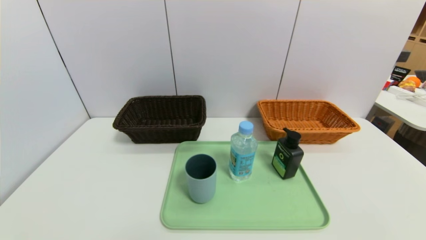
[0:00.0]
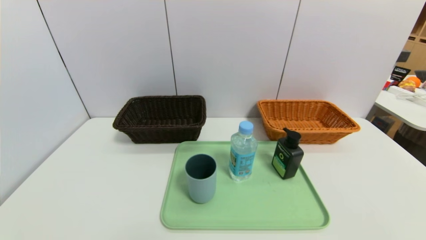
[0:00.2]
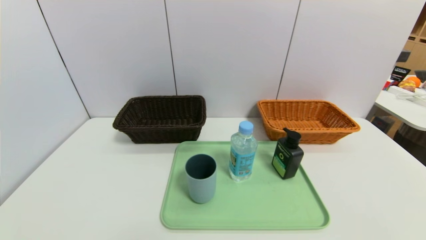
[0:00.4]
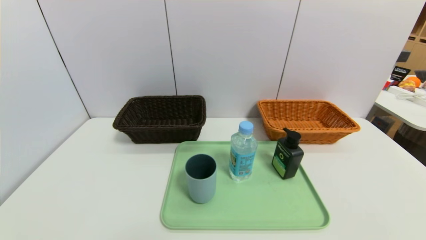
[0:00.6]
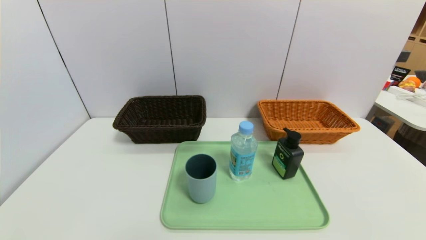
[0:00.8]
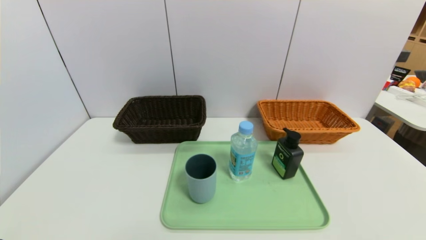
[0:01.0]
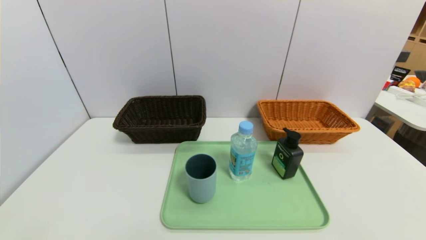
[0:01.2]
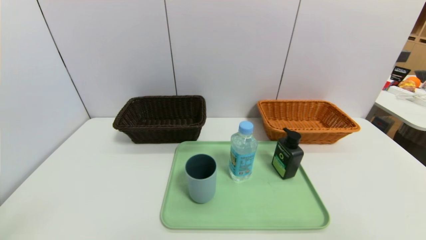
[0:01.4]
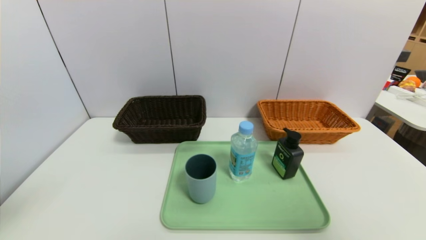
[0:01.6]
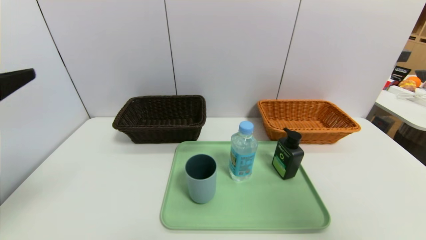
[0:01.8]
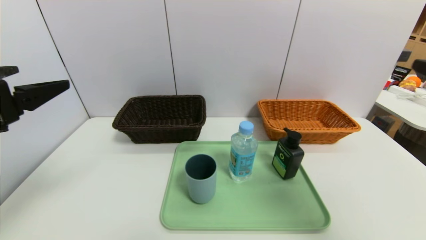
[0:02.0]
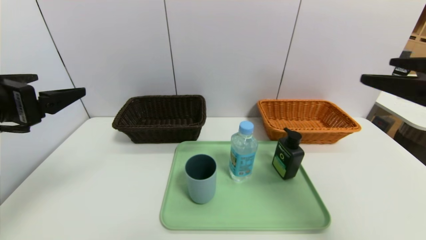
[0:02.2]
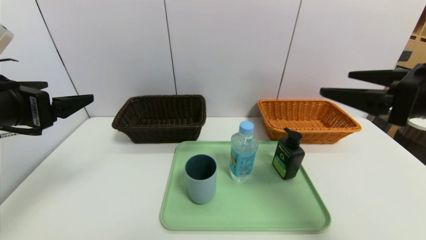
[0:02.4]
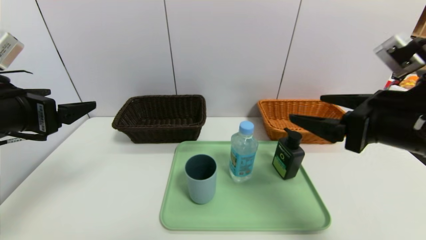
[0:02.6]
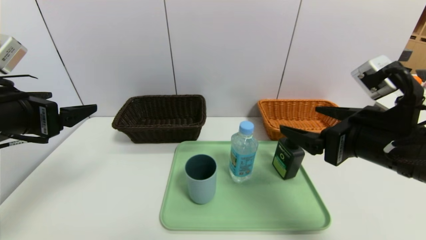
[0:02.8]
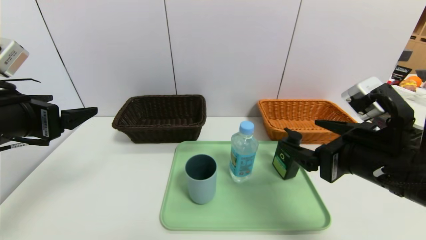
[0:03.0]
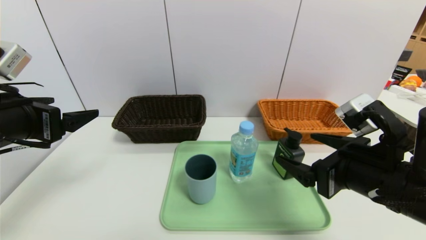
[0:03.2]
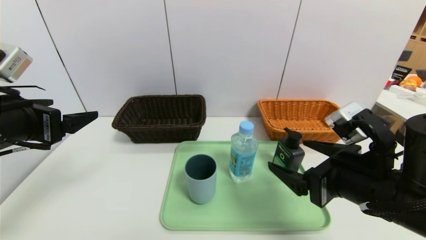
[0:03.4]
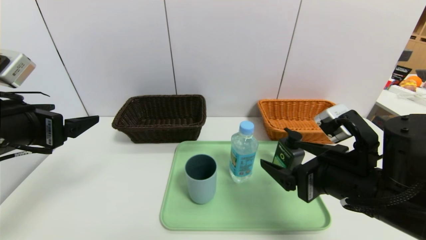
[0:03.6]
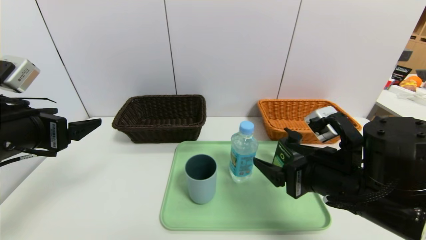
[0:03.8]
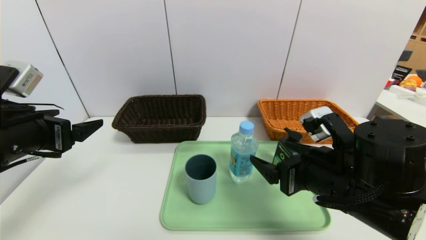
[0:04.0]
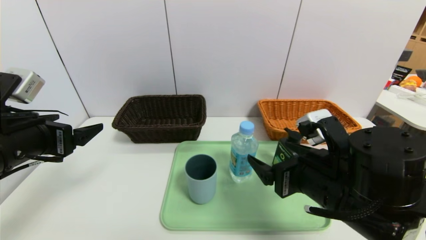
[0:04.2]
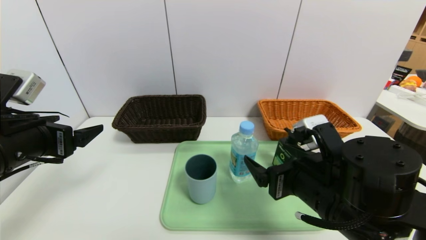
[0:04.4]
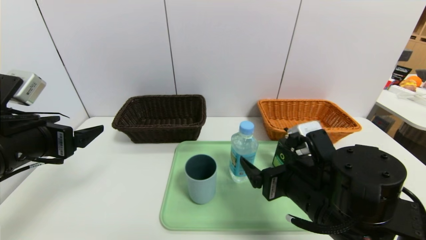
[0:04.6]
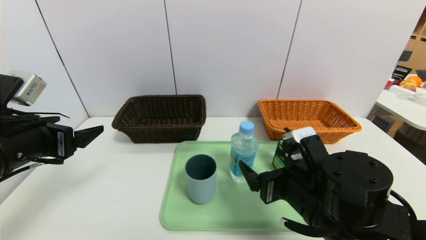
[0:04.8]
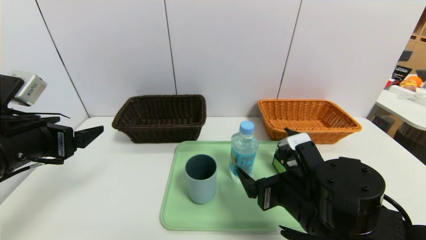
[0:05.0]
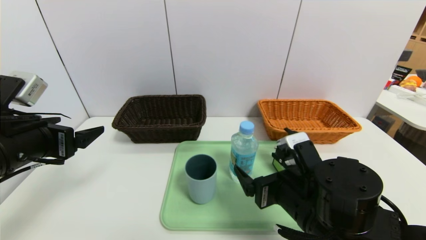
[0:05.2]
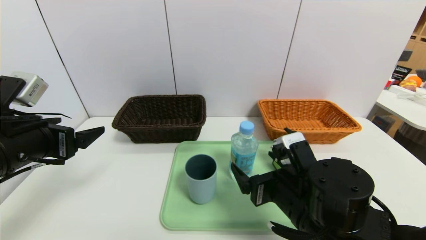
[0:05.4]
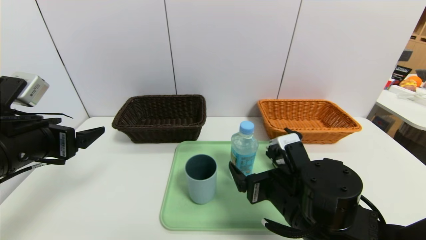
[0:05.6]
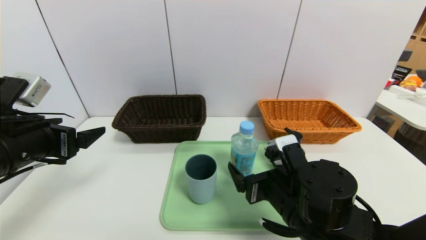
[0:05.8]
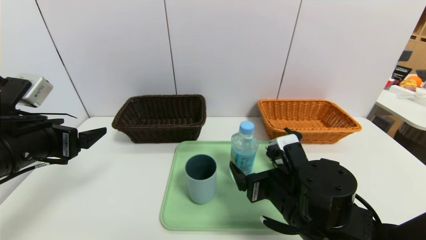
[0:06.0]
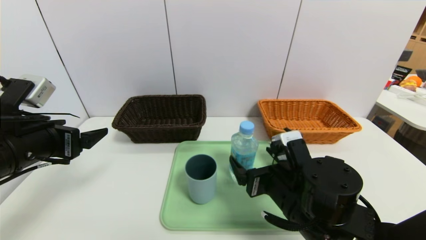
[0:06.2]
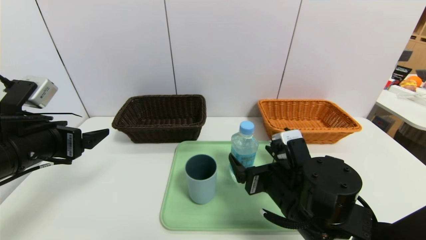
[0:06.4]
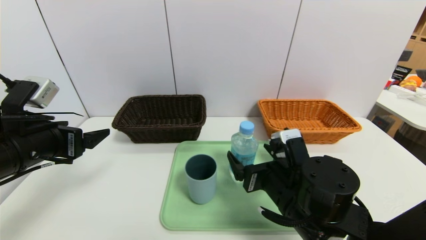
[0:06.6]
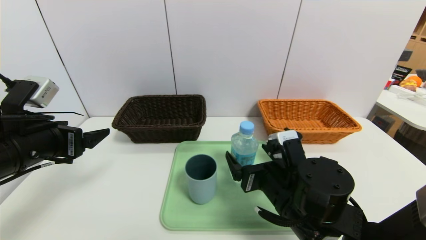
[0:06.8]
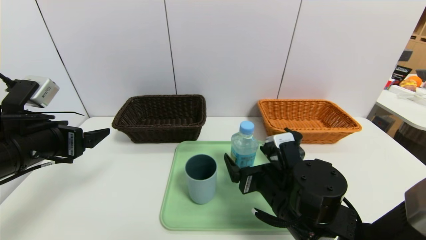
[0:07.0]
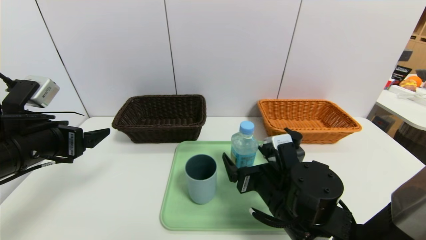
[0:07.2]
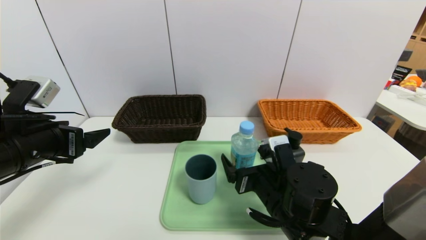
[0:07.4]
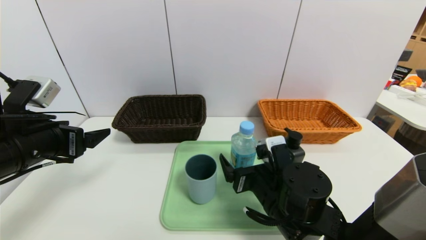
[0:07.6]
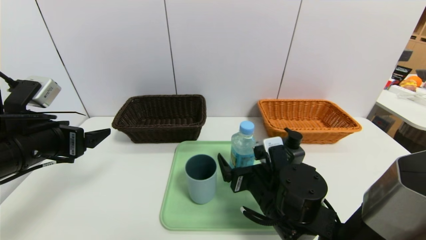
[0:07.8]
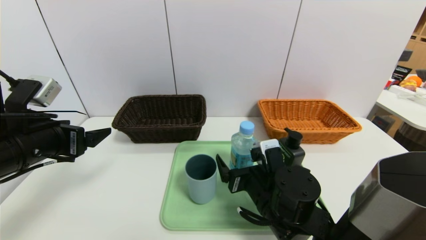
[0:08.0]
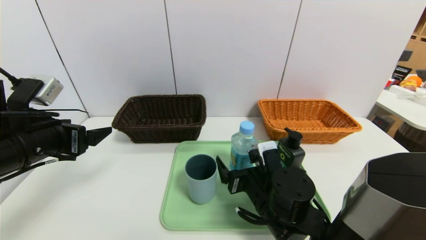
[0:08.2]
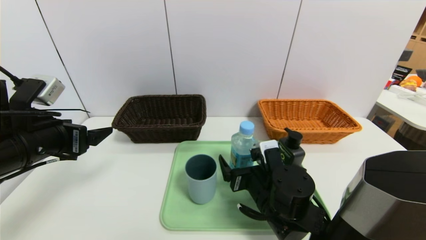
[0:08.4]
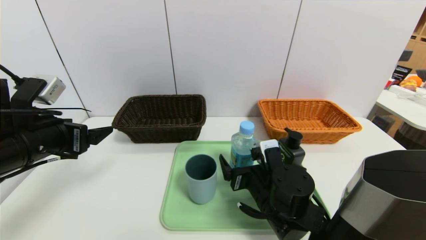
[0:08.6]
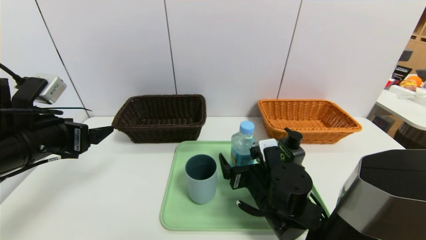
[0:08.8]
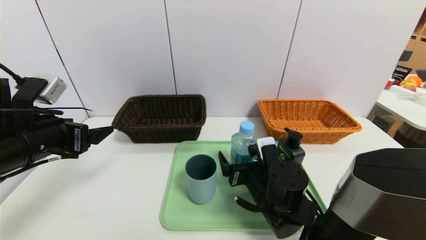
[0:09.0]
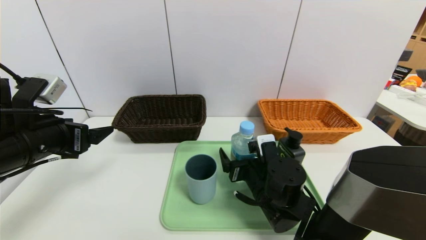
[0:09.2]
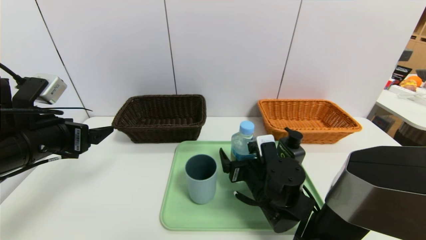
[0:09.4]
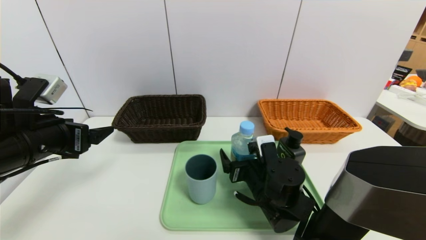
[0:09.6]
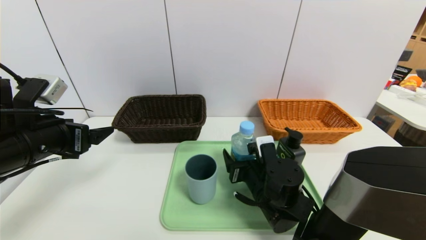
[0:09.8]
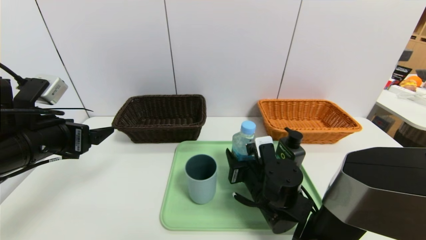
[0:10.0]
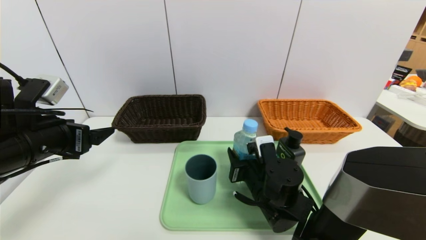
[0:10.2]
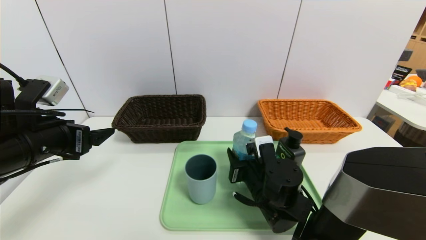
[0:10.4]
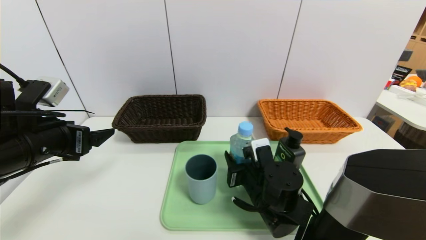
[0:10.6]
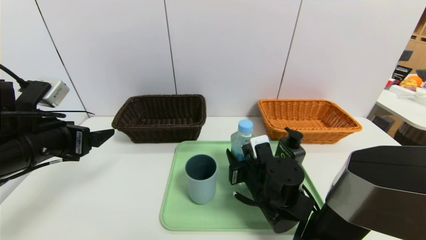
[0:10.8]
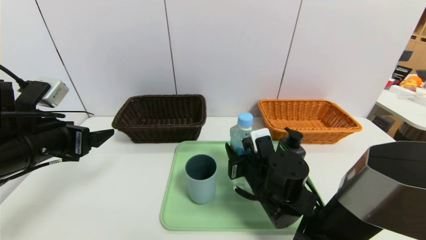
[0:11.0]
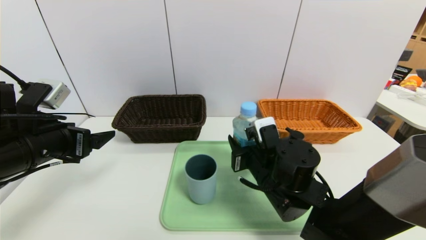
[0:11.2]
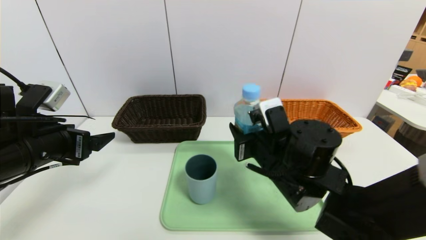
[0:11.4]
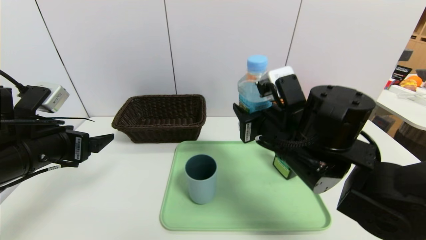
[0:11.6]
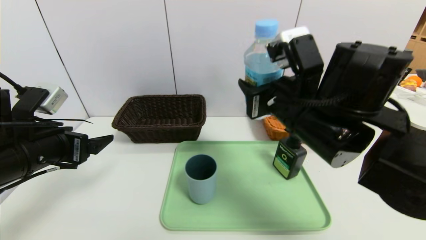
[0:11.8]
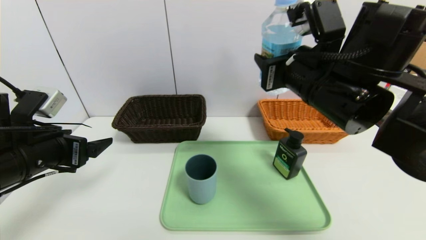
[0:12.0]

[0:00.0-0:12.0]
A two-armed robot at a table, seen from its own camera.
Task of the whole recording: place the food in the right basket with the right gripper, and place the non food items in the left basket with the left gripper.
0:00.0 to 0:01.6: Both grippers move upward, about 25 cm.
0:01.6 to 0:03.0: The right gripper is displaced downward, to the left and forward by about 20 cm. Meanwhile the left gripper shifts some 10 cm forward.
0:03.0 to 0:04.4: The right gripper heads to the left and downward, covering approximately 10 cm.
0:04.4 to 0:06.0: The right gripper shifts by some 5 cm.
0:06.0 to 0:07.6: There are only small adjustments of the grippers.
0:07.6 to 0:09.0: The grippers stay close to where they were, moving slightly.
0:09.0 to 0:10.4: The right gripper closes its fingers.
0:10.4 to 0:12.0: The right gripper moves upward, roughly 25 cm.

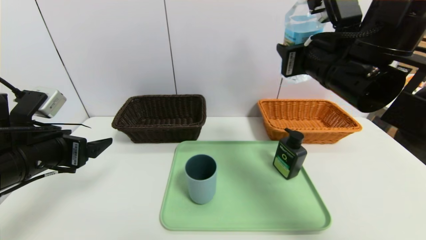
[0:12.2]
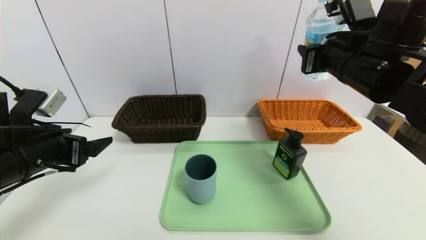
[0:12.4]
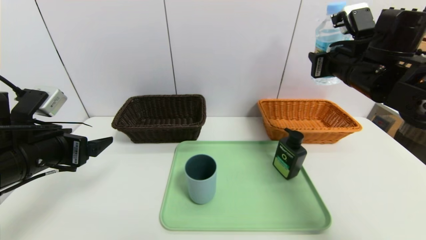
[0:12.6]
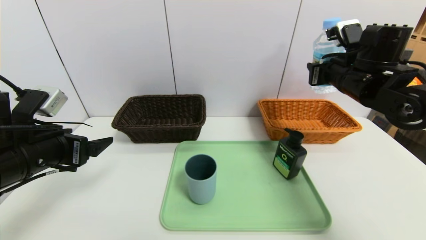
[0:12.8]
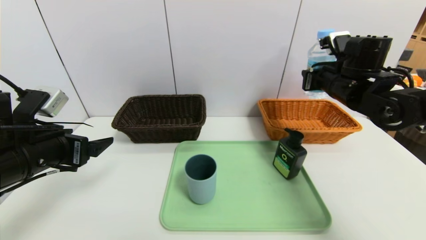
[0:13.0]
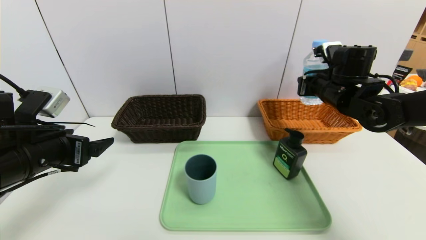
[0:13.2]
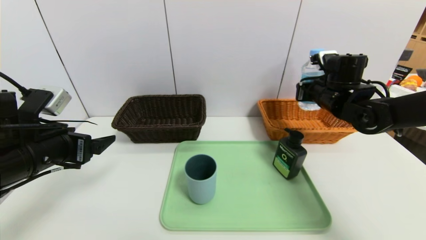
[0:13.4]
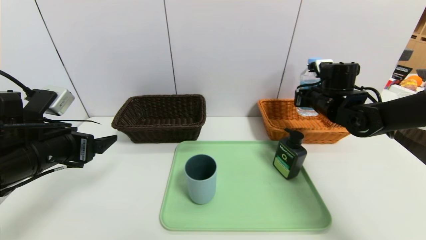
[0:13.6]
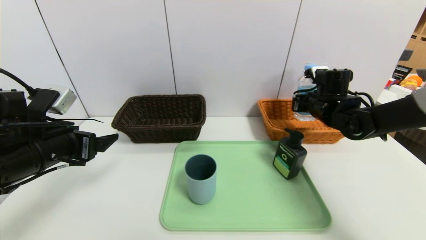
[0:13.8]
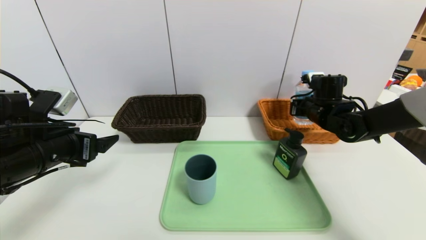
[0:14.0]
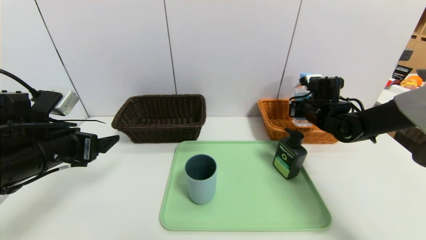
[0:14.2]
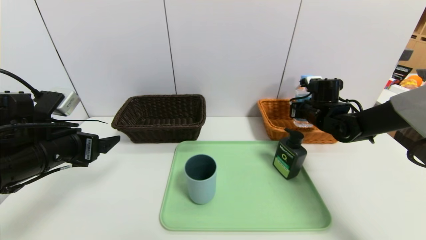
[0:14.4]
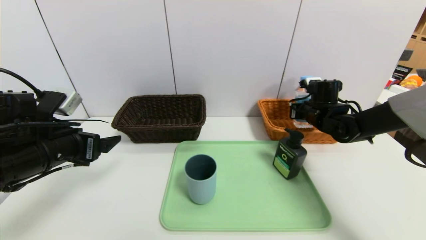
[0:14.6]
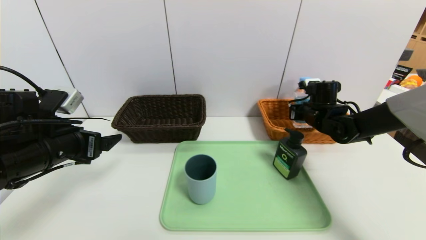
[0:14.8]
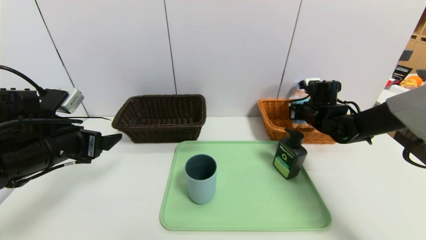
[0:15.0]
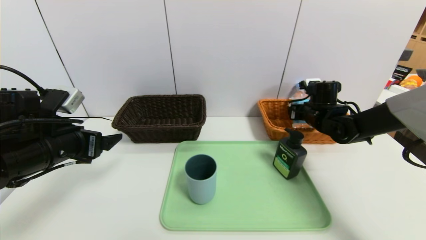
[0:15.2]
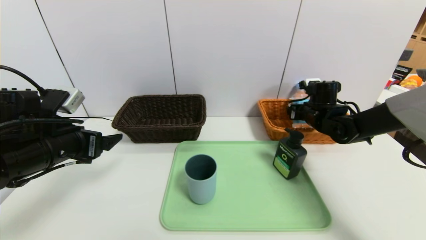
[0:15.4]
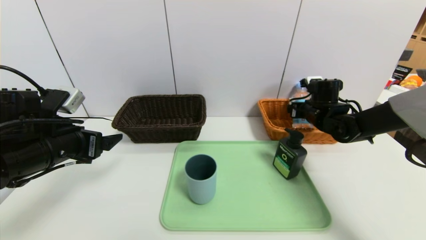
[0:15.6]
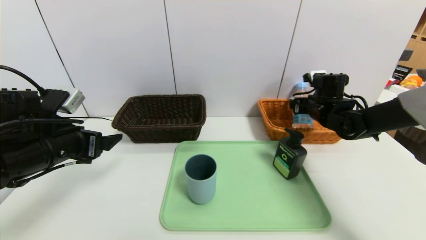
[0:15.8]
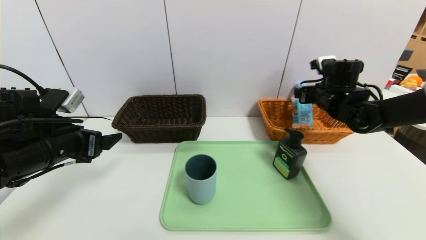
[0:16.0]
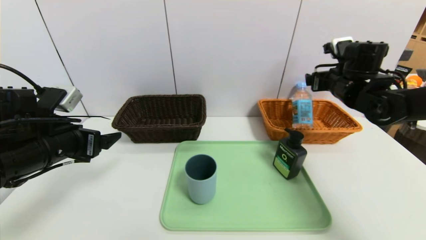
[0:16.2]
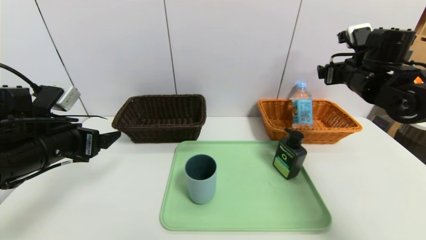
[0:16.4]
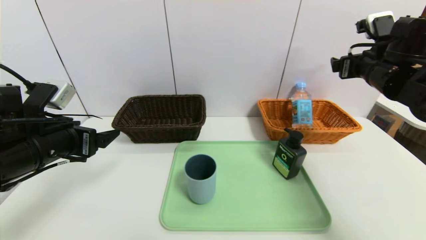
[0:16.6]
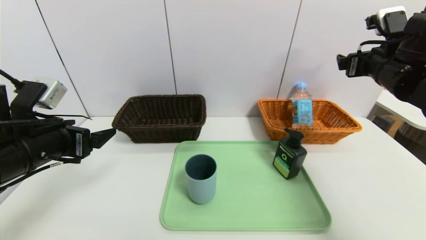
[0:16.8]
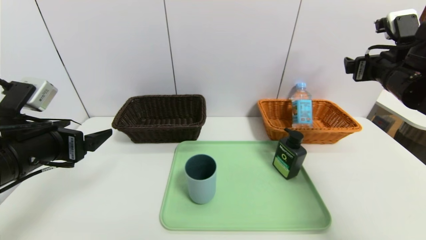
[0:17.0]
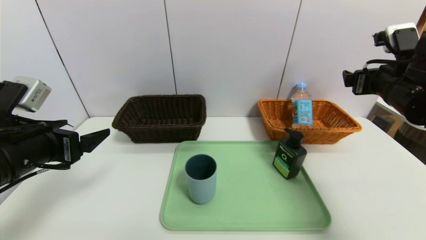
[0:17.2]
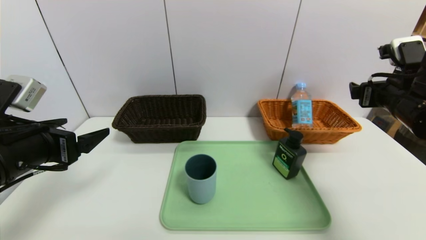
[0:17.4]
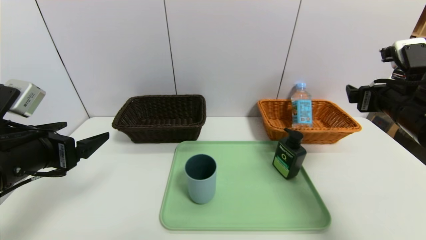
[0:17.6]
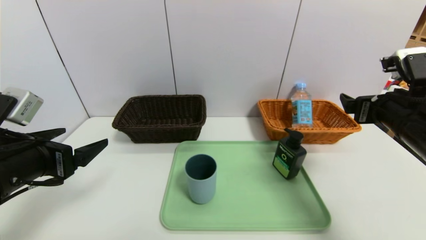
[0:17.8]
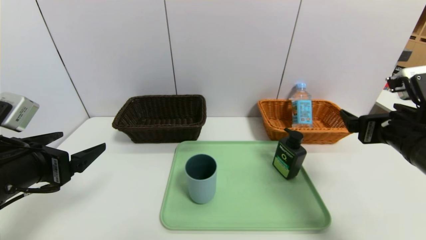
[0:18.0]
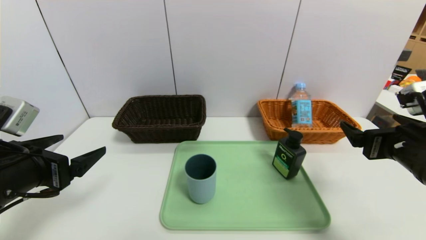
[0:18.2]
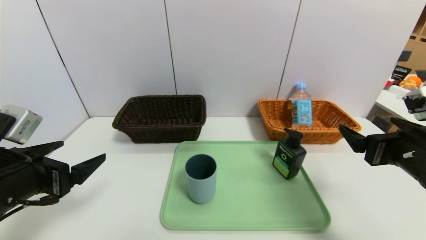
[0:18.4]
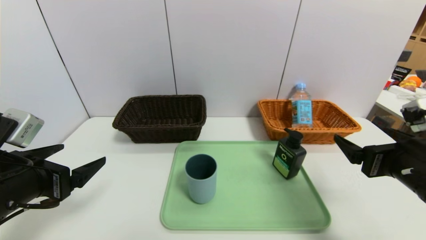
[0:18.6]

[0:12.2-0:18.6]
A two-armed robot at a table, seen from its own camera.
Task of the whole recording: place the food in the right basket with the right gripper, and place the non food items in the left basket with the left gripper.
Step, 0:12.2 to 0:15.4: Grasp the soda water and put it in the right basket.
0:12.2 to 0:13.8: The right gripper goes roughly 20 cm downward, forward and to the right.
0:13.8 to 0:15.4: The right gripper opens its fingers.
0:15.4 to 0:17.0: The right gripper moves upward and backward, approximately 20 cm.
0:17.0 to 0:18.6: The right gripper is displaced backward and downward by roughly 15 cm. Meanwhile the left gripper ends up about 5 cm from where it was.
